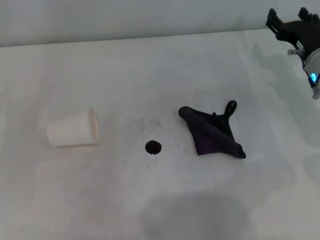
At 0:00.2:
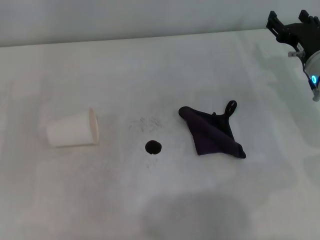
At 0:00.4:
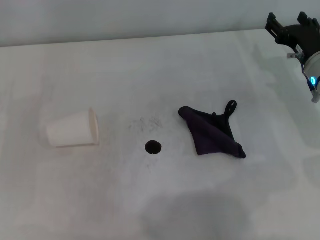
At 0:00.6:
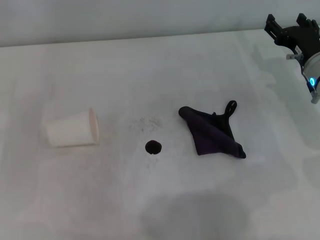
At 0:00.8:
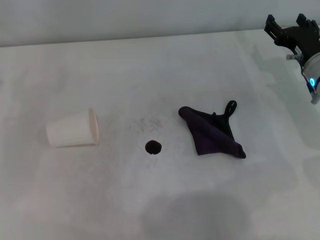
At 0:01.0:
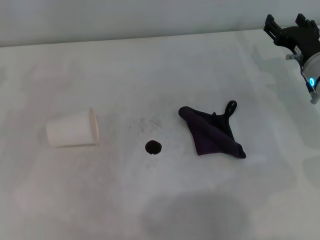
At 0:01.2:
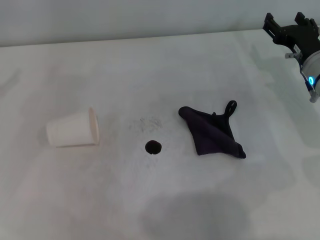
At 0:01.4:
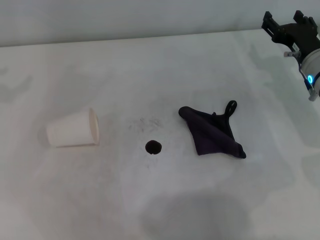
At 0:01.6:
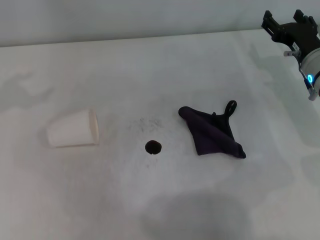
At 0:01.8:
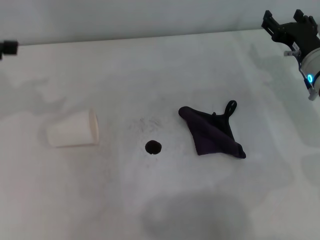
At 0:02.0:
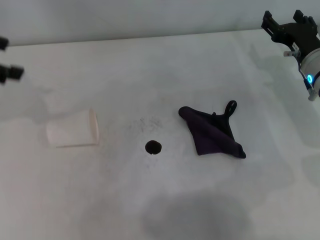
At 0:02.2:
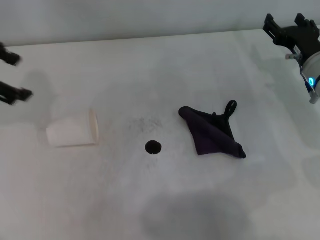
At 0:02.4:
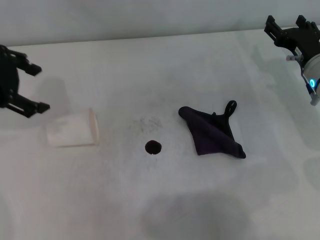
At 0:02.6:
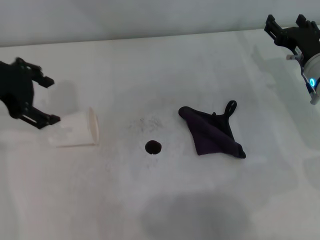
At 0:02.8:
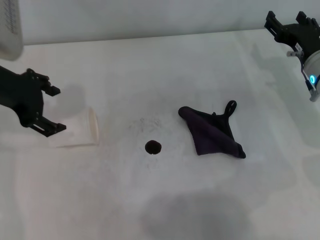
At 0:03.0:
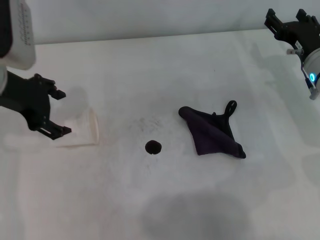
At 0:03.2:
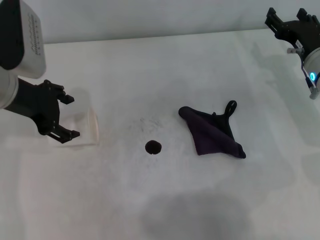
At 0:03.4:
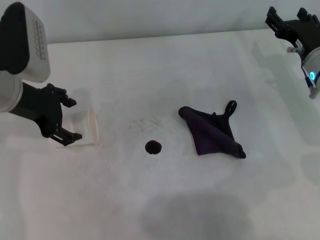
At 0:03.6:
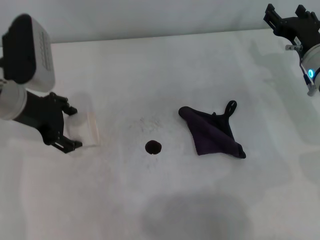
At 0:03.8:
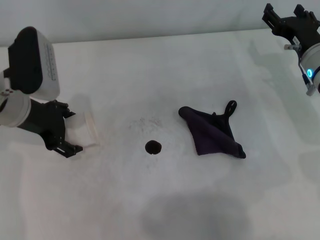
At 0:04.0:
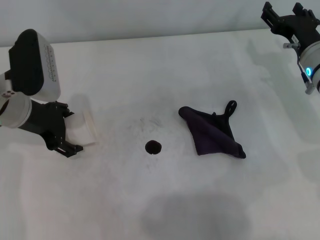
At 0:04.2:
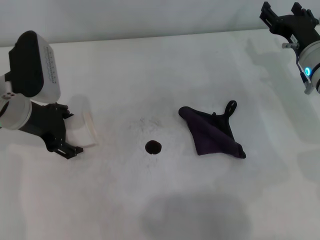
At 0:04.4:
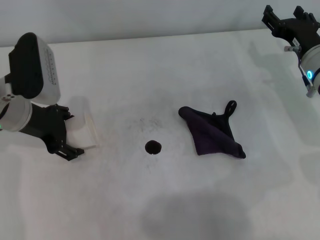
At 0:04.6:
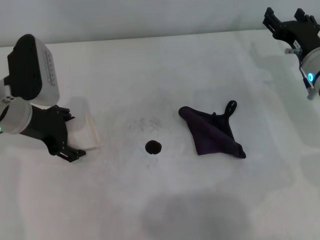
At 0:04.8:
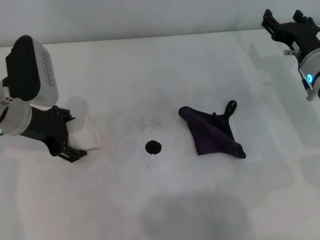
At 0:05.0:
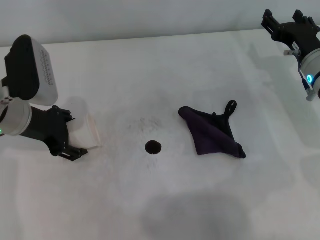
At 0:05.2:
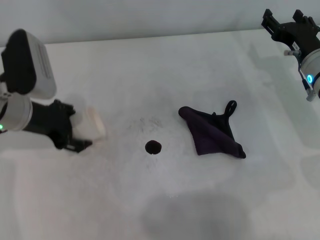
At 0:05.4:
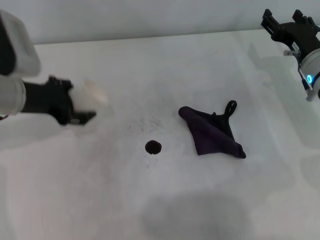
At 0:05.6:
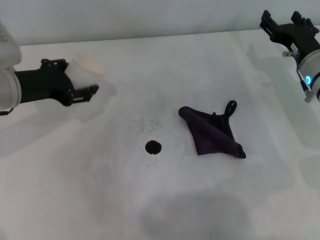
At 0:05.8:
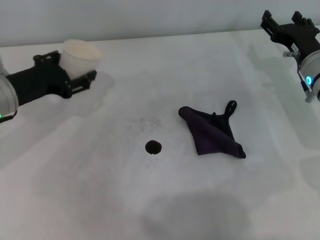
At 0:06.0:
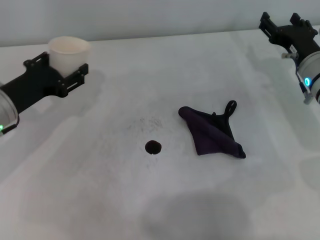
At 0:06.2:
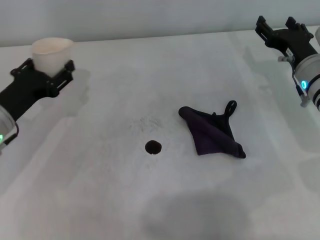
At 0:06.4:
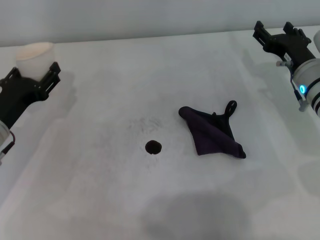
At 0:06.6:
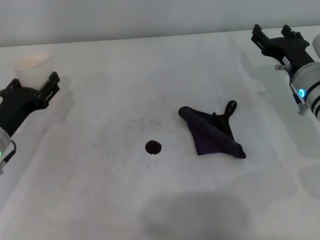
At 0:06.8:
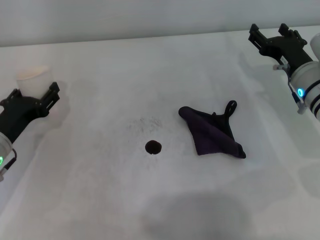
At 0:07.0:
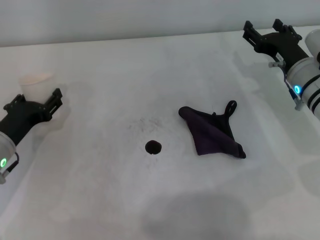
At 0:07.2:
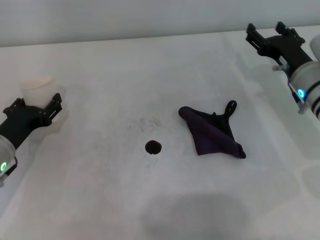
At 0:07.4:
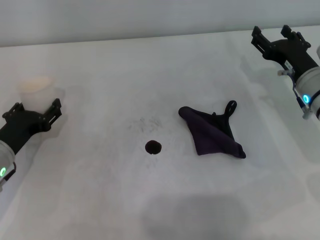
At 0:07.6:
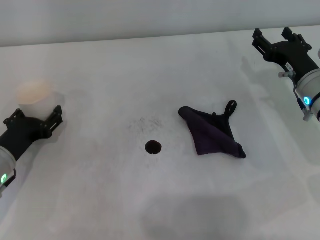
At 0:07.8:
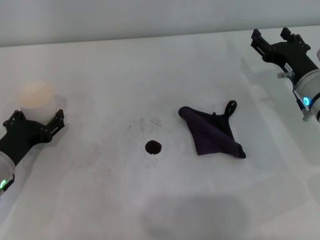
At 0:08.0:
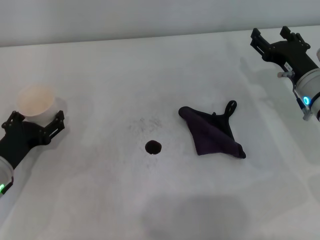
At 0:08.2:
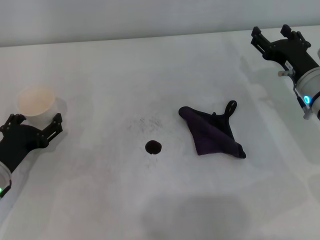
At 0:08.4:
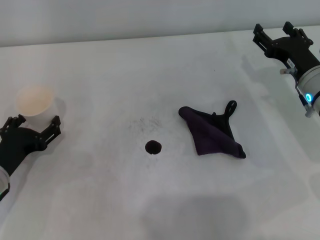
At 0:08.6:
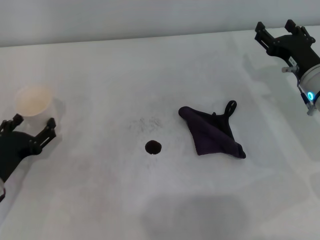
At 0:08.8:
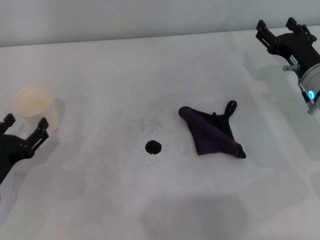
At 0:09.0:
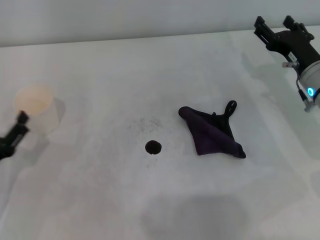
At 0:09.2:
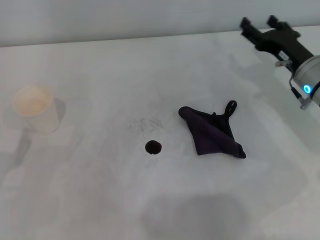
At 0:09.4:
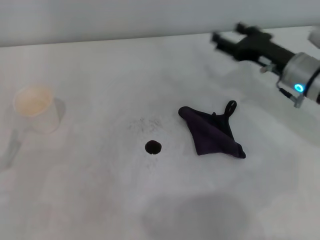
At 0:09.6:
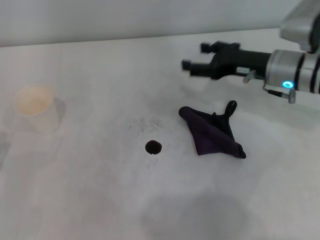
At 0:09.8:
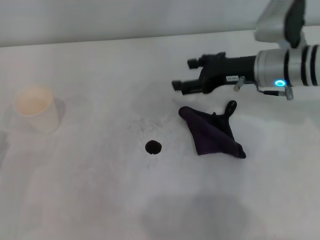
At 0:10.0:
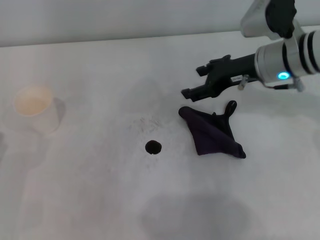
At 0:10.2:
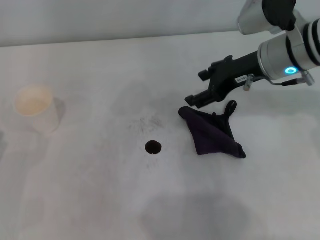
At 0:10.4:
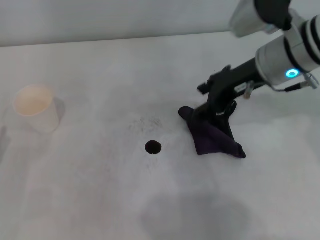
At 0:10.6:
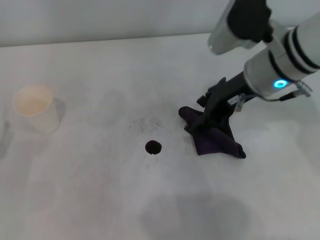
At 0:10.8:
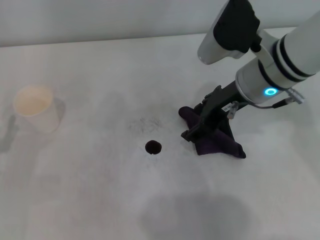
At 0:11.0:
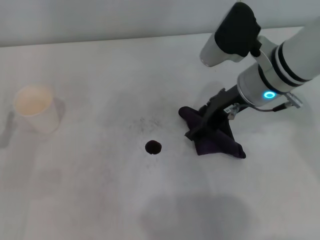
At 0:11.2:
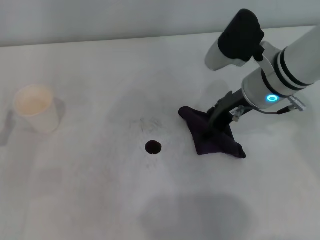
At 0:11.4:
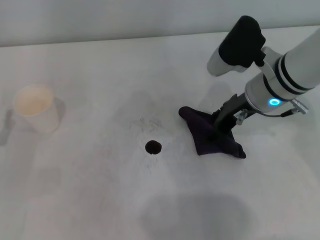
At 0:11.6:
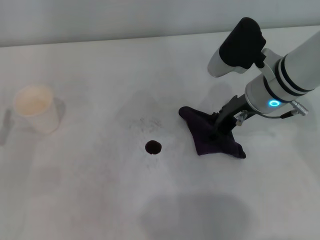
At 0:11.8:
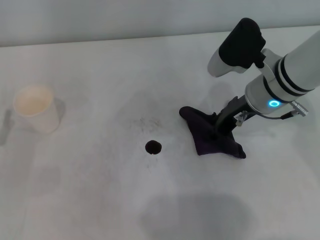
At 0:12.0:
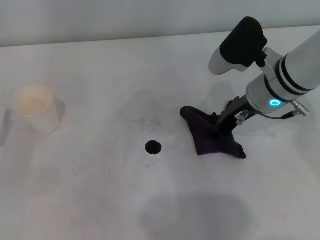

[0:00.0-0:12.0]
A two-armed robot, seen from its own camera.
Step, 0:00.0 to 0:03.8: Grasp the paper cup with the left gripper.
Step, 0:04.0 to 0:08.2: Stand the paper cup upright with the left gripper.
0:01.6 to 0:03.0: The left gripper shifts approximately 15 cm to the right.
0:03.0 to 0:04.4: The left gripper travels downward by roughly 5 cm.
0:04.4 to 0:06.0: The left gripper changes place by roughly 5 cm, and closes up.
0:06.0 to 0:07.6: The left gripper shifts roughly 10 cm downward and backward.
0:07.6 to 0:09.0: The left gripper moves backward, roughly 10 cm, and opens.
0:09.0 to 0:10.4: The right gripper travels upward and to the left by approximately 15 cm.
0:10.4 to 0:12.0: The right gripper heads downward, covering some 5 cm, and closes.

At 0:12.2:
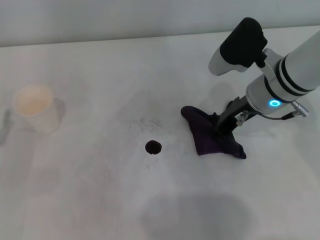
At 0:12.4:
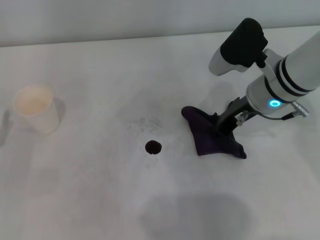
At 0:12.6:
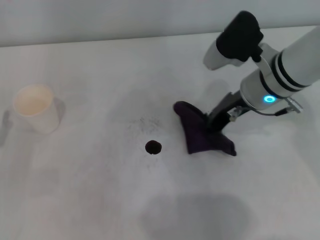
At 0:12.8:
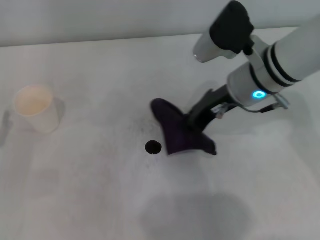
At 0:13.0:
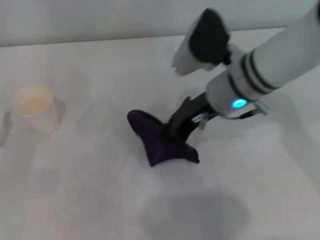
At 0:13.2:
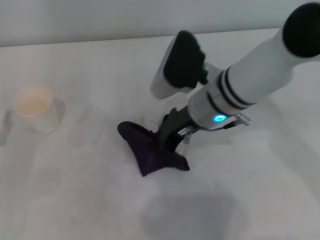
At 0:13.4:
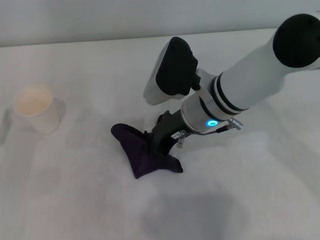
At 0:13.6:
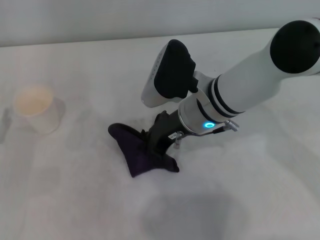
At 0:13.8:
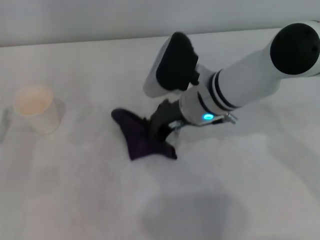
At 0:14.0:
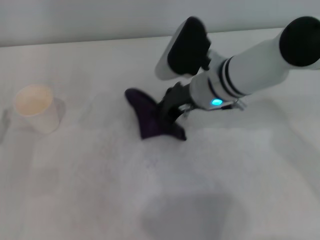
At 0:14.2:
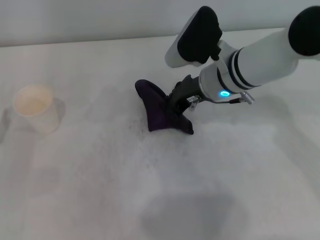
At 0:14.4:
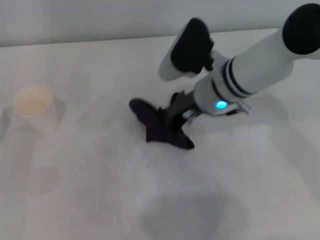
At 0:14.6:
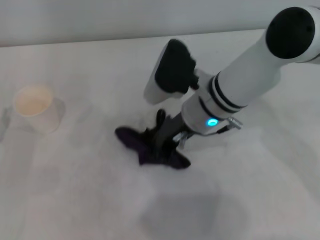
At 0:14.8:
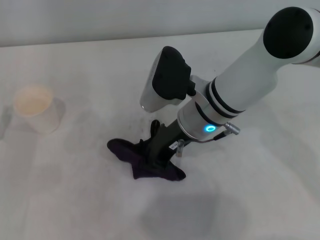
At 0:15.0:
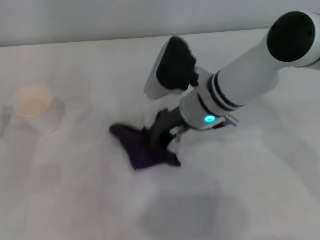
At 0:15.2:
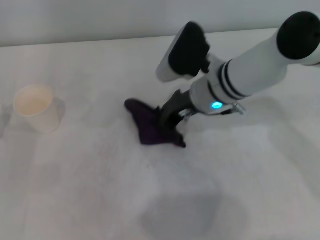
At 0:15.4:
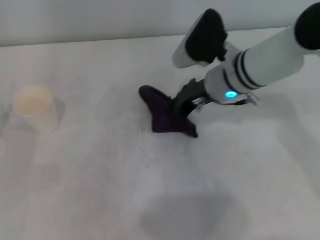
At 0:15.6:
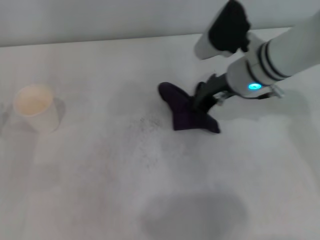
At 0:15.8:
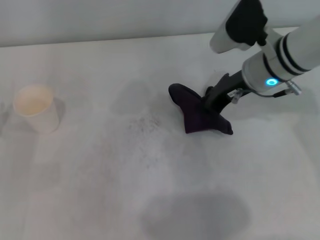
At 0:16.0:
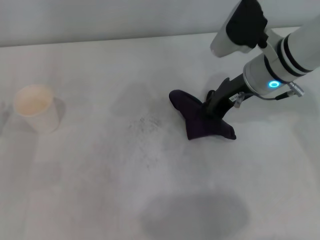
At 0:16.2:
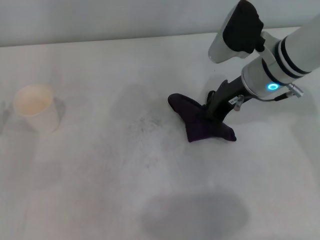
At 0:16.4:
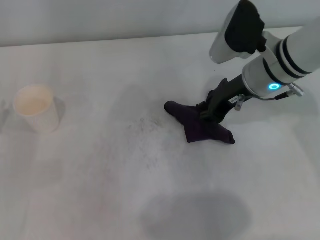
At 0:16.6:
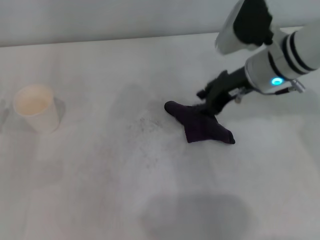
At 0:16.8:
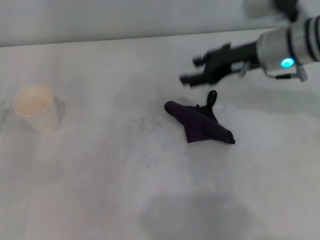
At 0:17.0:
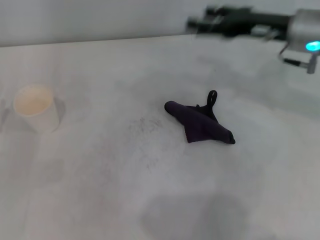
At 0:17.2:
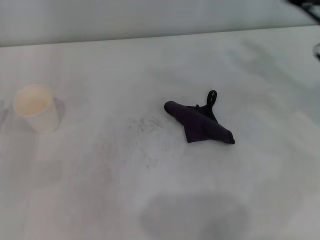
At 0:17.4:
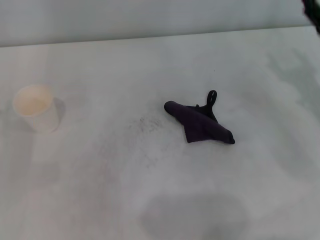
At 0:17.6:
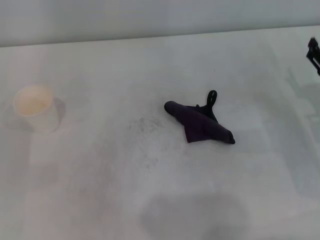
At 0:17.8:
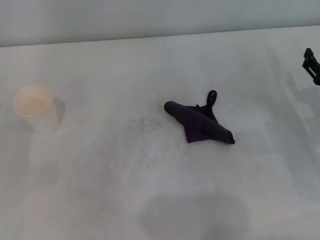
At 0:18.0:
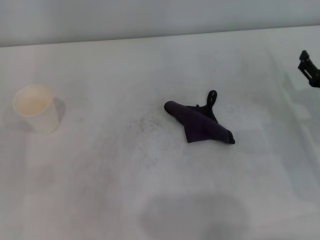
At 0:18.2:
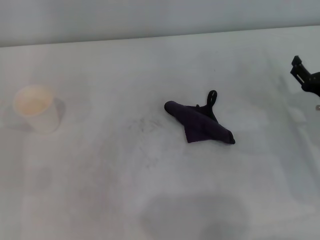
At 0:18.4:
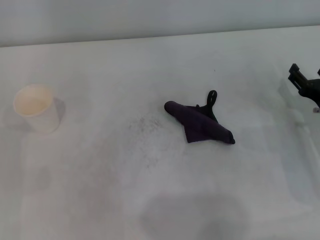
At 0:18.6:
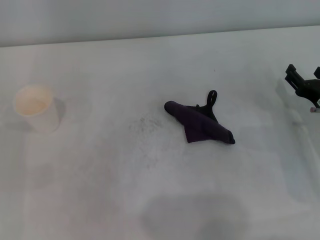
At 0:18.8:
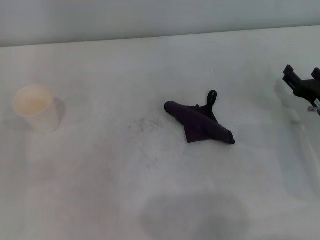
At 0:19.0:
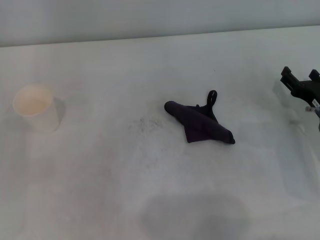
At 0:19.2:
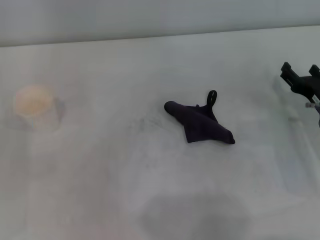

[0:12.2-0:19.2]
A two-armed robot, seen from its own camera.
Step, 0:12.4 to 0:15.6: Wipe the stains off the table with the right gripper.
Step, 0:16.0 to 0:16.4: Place the rag on the table with the right gripper.
0:12.2 to 0:13.6: The right gripper moves to the left, roughly 10 cm.
0:13.6 to 0:15.0: The grippers stay close to where they were, moving slightly.
0:15.0 to 0:16.4: The right gripper shifts approximately 10 cm to the right.
0:16.4 to 0:17.8: The right gripper heads to the right, downward and backward, covering about 20 cm, and opens its fingers.
0:17.8 to 0:19.2: The grippers stay close to where they were, moving slightly.
